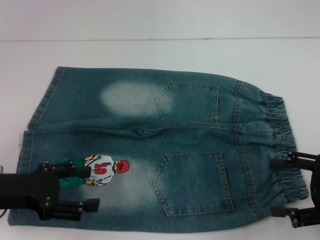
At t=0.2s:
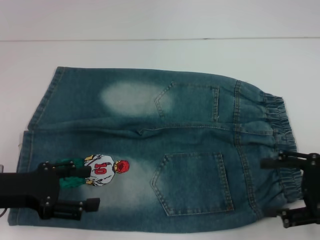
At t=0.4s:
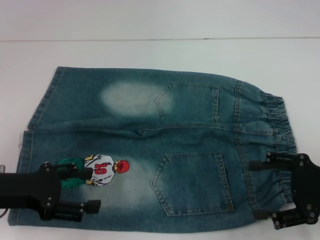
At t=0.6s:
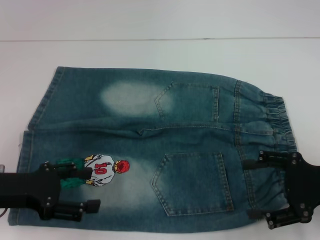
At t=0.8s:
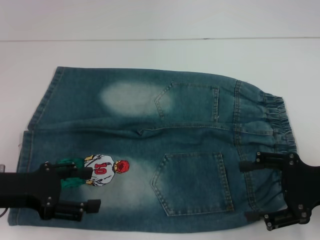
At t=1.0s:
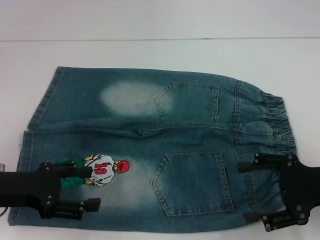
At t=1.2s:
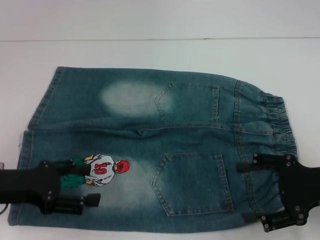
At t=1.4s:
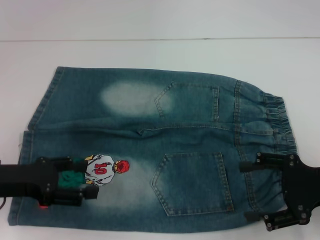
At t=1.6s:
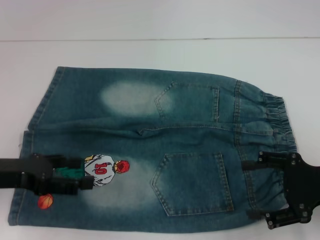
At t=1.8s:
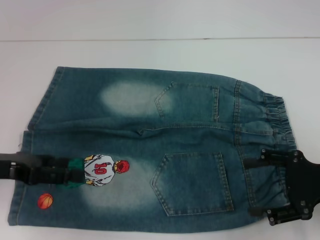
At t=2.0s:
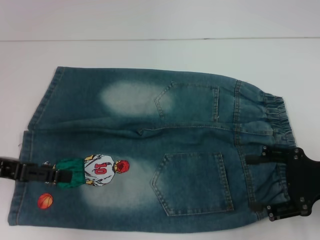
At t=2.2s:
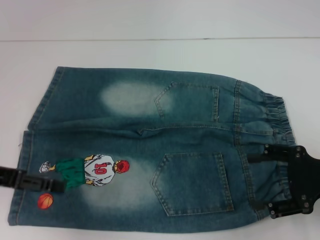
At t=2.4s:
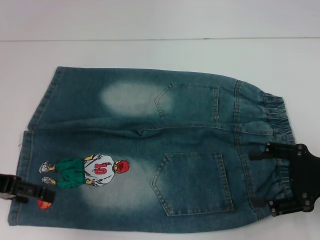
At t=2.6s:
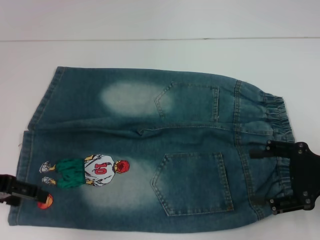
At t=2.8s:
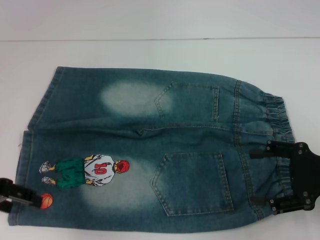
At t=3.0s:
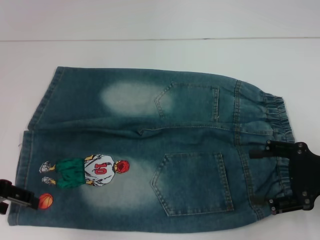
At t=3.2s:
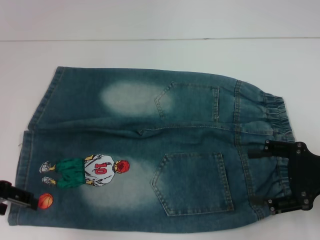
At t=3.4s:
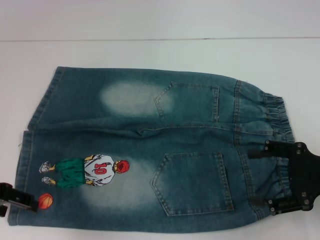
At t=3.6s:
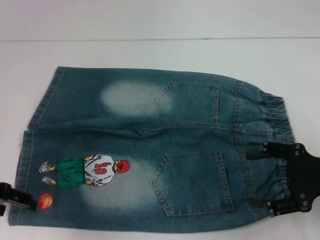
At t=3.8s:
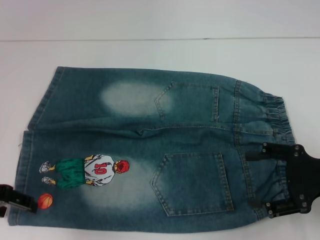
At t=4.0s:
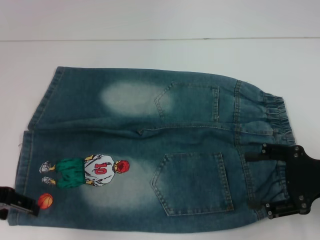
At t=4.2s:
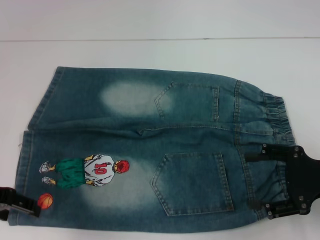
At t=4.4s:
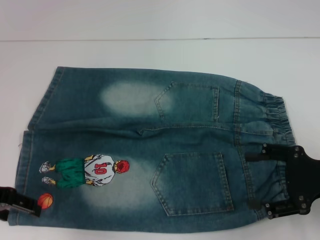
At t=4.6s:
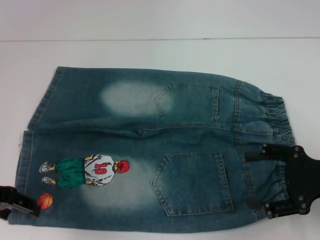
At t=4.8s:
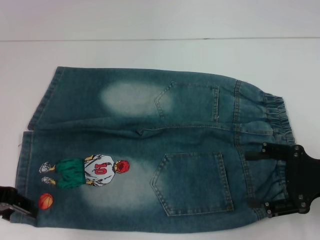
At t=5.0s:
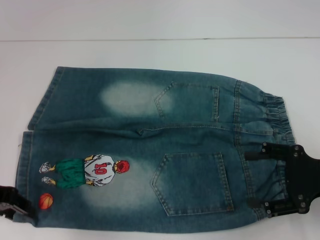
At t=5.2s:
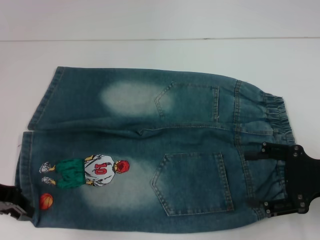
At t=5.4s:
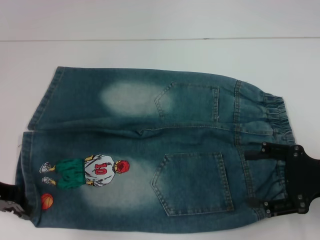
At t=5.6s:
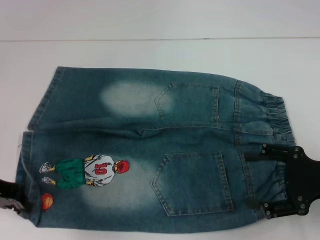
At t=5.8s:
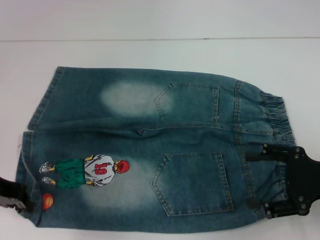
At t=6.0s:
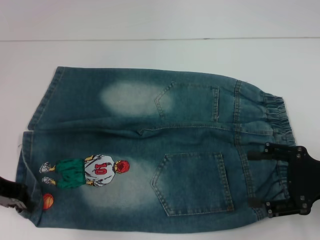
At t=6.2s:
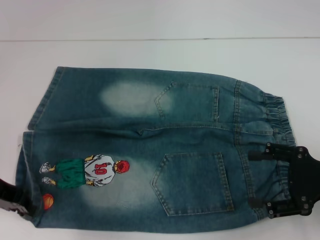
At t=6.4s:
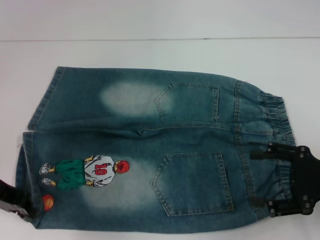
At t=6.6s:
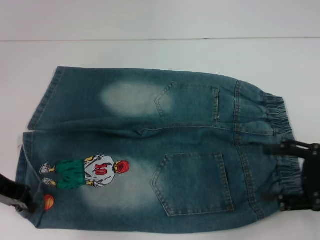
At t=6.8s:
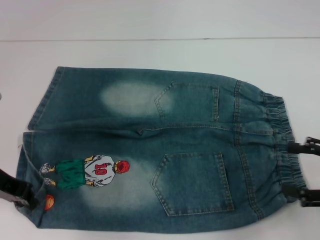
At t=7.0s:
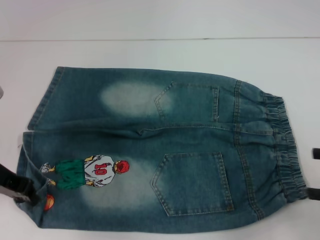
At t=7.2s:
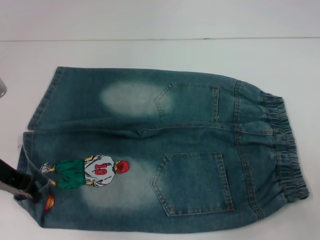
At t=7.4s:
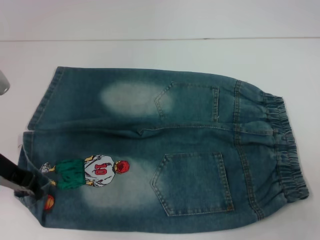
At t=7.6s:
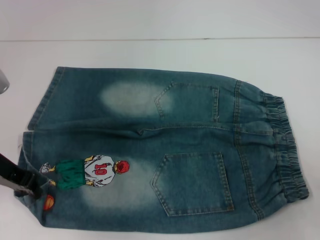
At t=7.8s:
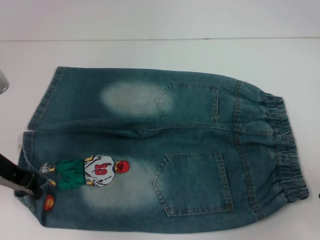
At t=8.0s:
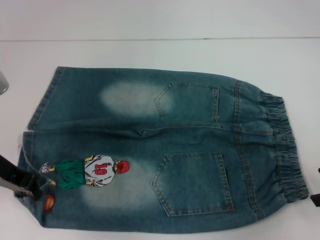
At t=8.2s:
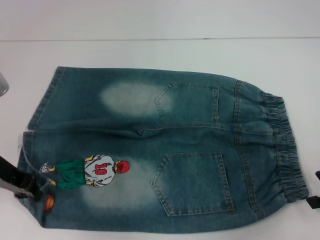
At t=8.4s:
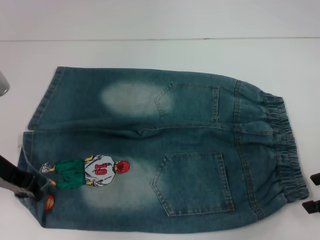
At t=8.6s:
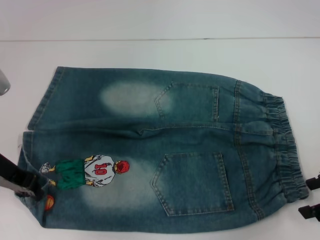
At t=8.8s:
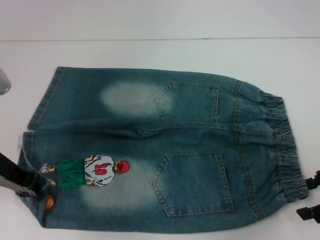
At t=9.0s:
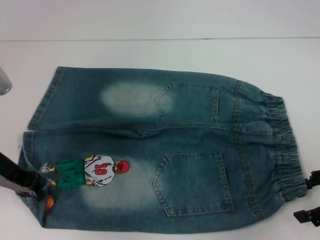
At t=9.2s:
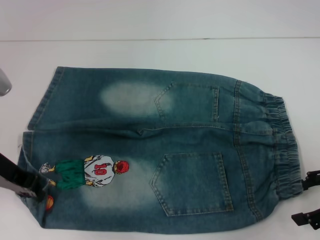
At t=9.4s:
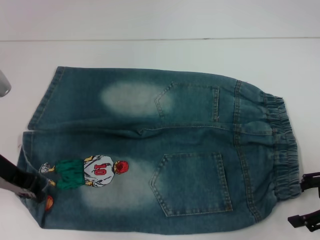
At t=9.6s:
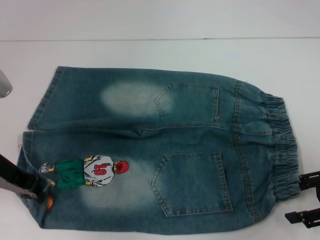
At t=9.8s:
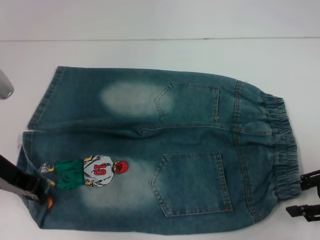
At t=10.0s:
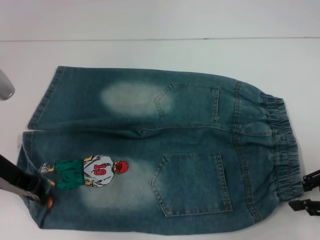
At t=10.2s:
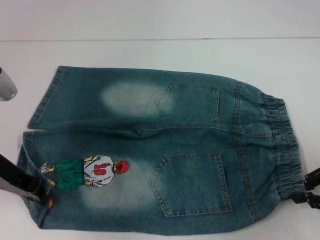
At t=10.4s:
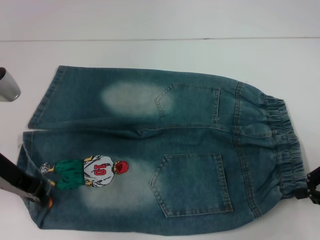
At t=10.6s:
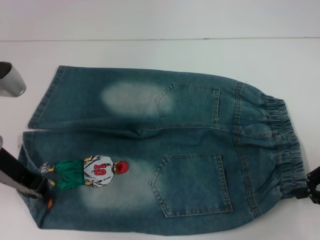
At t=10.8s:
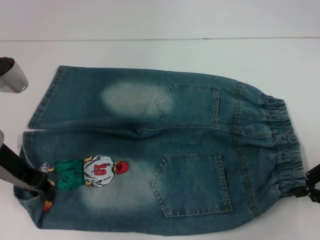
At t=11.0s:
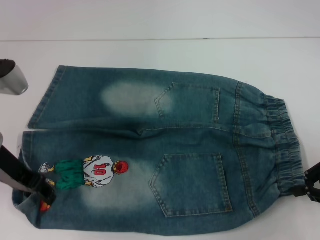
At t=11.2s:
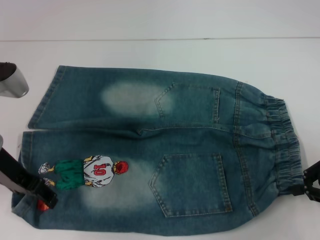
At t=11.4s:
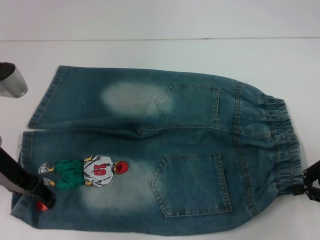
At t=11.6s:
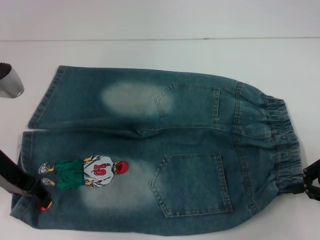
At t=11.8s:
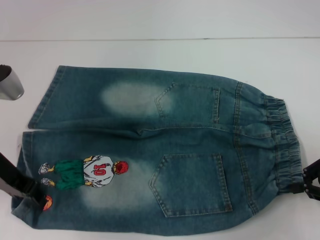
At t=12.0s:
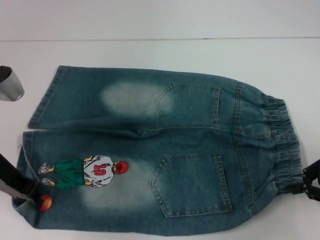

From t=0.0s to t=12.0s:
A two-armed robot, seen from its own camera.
Step, from t=0.0s to t=5.6s: Grab the lower left pant leg with your left hand.
Step, from t=5.8s to t=10.4s: Hold the lower right waistband with your right hand.
From t=0.0s to t=1.6s: There are only small adjustments of the grippers.
From t=3.0s to t=4.4s: The grippers make only small movements.
From t=4.4s to t=6.0s: The left gripper closes up.
From t=6.0s to t=7.6s: The right gripper is displaced to the right and upward by some 10 cm.
From t=7.6s to t=9.0s: The right gripper ends up about 5 cm from where it was.
From t=9.0s to t=10.4s: The right gripper closes up.
From t=10.4s to t=12.0s: The left gripper opens.

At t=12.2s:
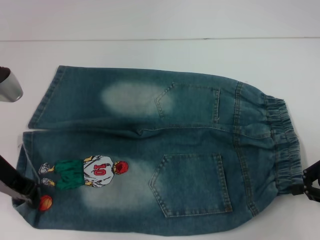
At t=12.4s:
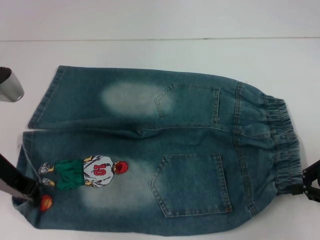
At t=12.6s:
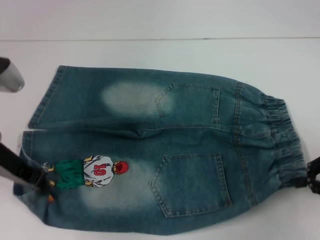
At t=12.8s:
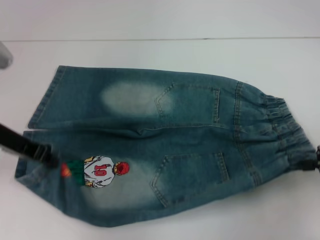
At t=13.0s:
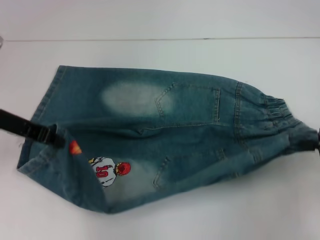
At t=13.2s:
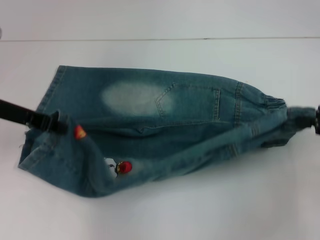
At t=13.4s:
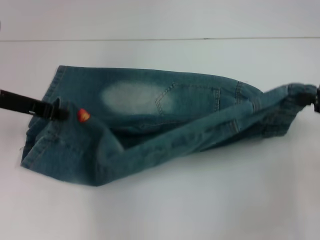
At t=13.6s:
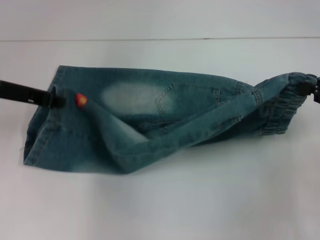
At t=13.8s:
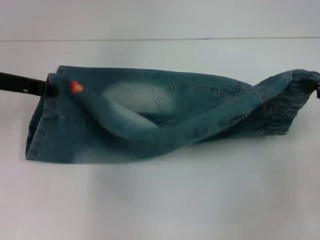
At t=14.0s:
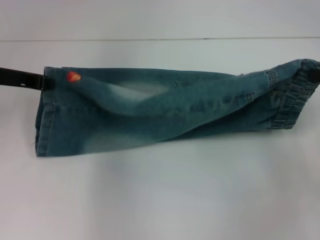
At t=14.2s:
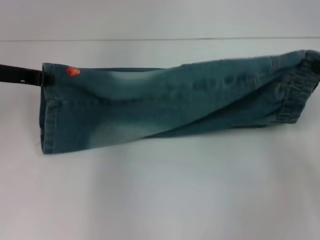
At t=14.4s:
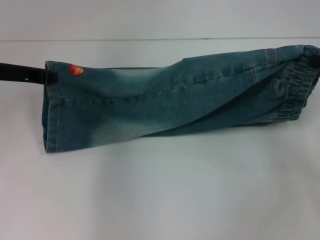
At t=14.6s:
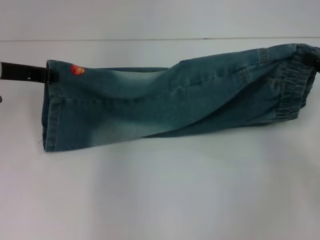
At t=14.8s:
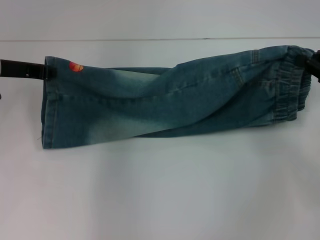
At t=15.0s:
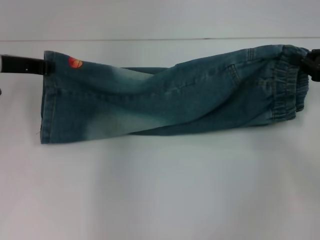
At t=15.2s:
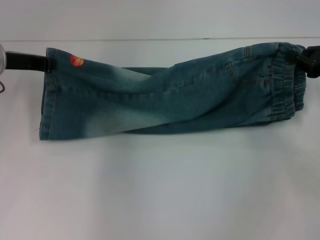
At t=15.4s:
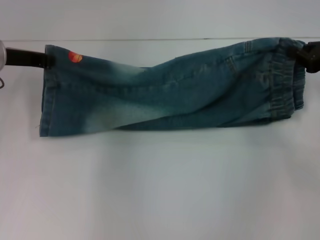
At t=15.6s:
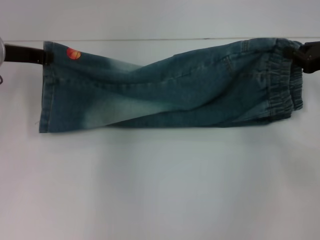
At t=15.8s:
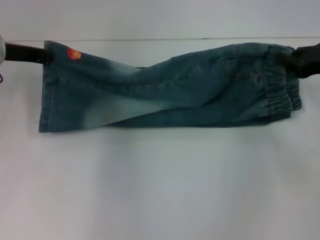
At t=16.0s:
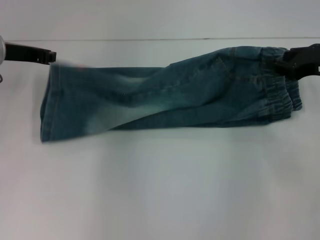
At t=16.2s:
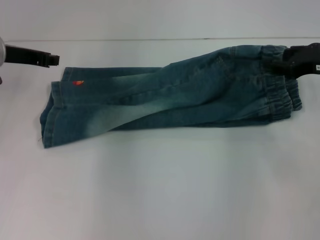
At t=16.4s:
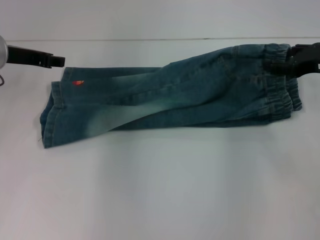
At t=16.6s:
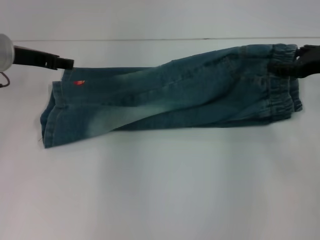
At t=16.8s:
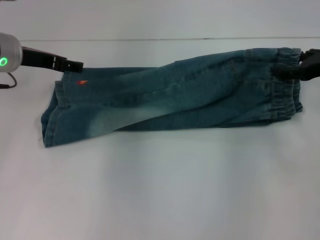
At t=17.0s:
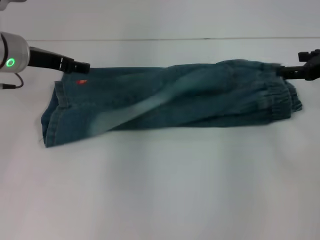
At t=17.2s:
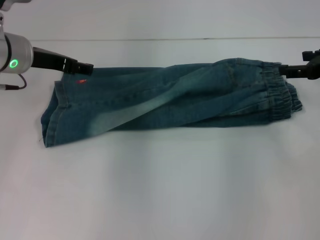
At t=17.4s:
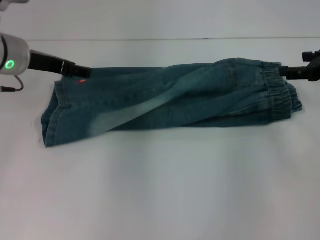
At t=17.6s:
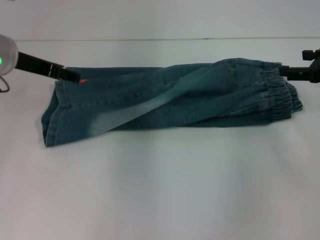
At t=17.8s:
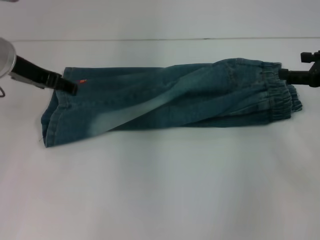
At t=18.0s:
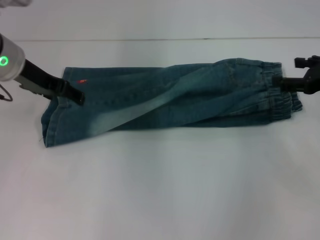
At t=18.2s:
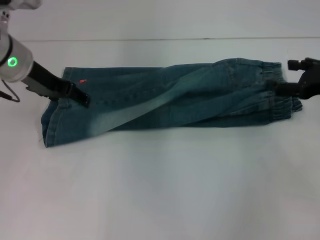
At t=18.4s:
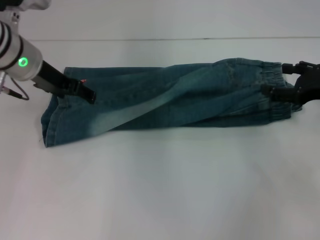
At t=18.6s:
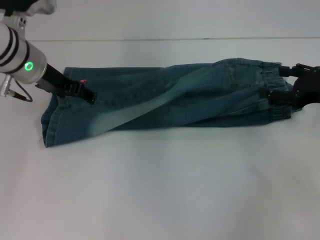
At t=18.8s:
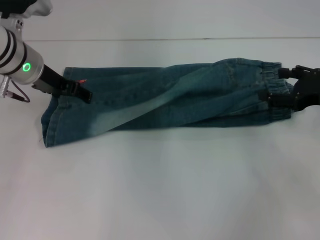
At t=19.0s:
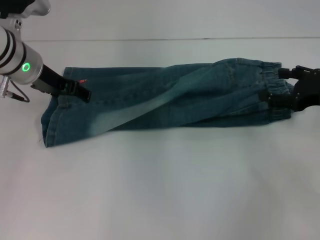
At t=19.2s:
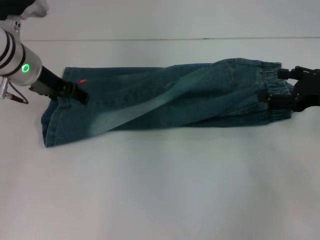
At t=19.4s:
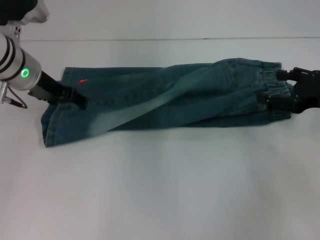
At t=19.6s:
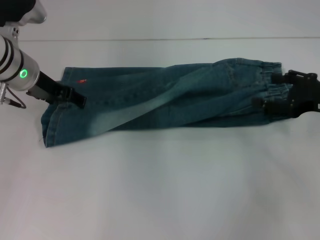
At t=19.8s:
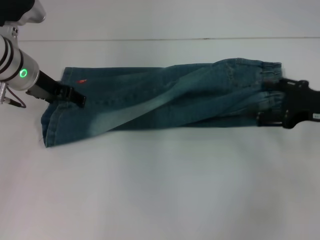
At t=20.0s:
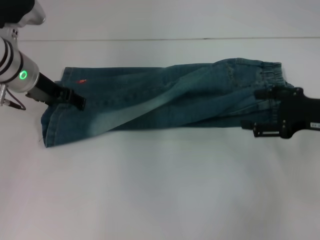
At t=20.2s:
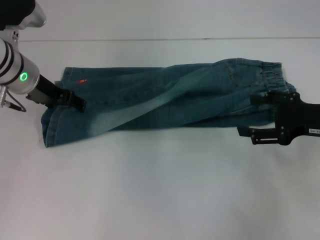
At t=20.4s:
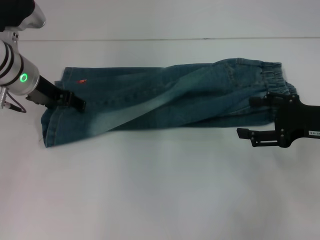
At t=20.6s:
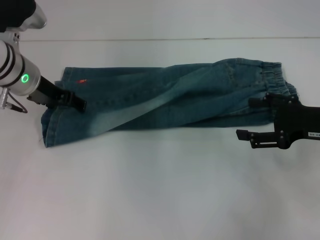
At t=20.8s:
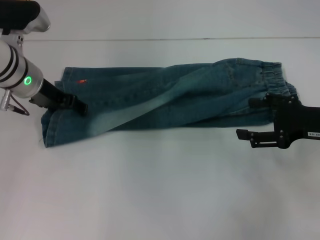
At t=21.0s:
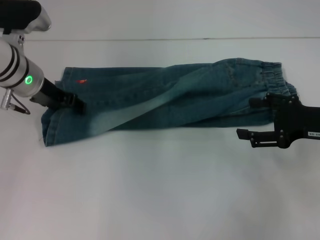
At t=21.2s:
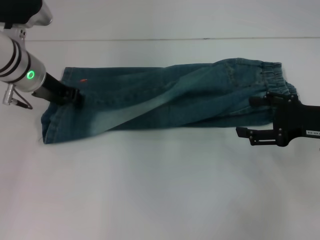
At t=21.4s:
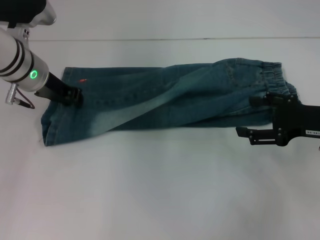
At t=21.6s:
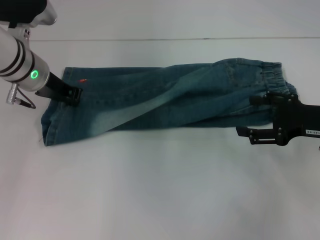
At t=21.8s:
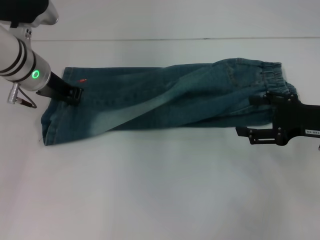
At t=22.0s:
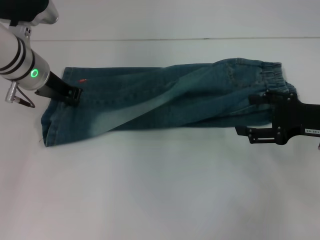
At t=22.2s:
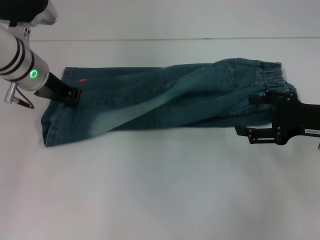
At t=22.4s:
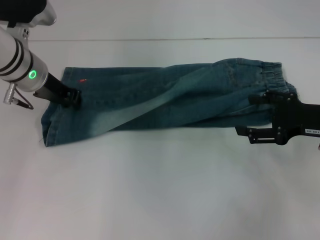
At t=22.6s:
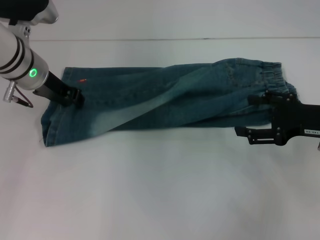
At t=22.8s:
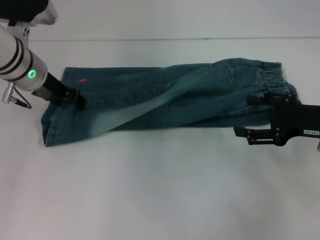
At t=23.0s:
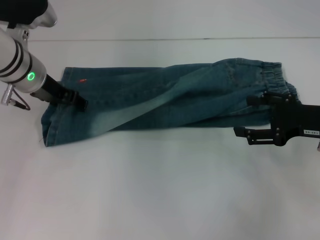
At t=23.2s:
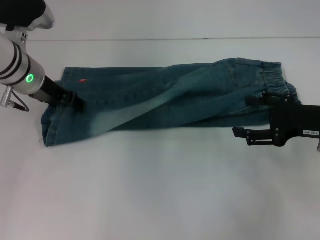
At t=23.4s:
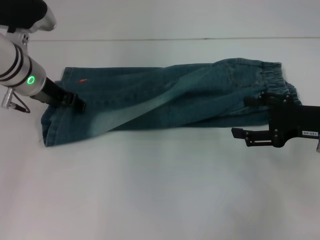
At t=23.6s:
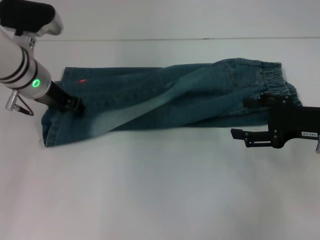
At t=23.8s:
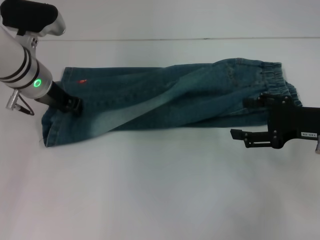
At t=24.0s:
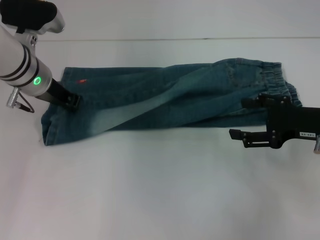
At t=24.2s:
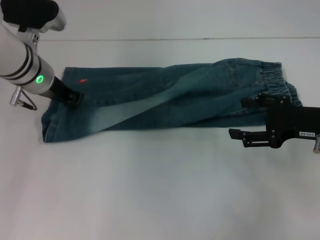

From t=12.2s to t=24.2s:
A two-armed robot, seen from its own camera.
Step, from t=12.2s to t=16.2s: Fold upward with your left hand.
Step, from t=16.4s to t=17.0s: Fold upward with your right hand.
From t=12.2s to t=13.8s: The left gripper is displaced forward by roughly 5 cm; the right gripper shifts approximately 5 cm upward.
From t=13.8s to t=15.2s: The right gripper moves forward, about 5 cm.
From t=15.2s to t=16.6s: The right gripper opens up. Meanwhile the left gripper opens its fingers.
From t=16.6s to t=18.2s: The left gripper opens its fingers.
From t=18.2s to t=19.8s: The grippers stay close to where they were, moving slightly.
From t=19.8s to t=21.2s: The grippers move only a little.
From t=21.2s to t=22.6s: The left gripper closes.
From t=22.6s to t=24.2s: The left gripper opens, then closes once more.
